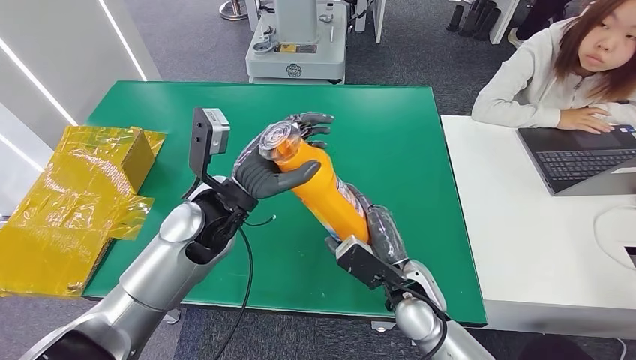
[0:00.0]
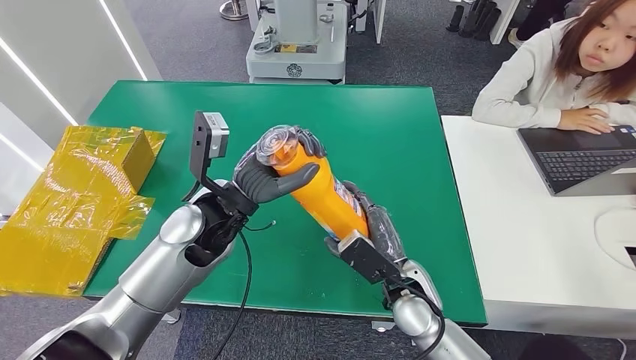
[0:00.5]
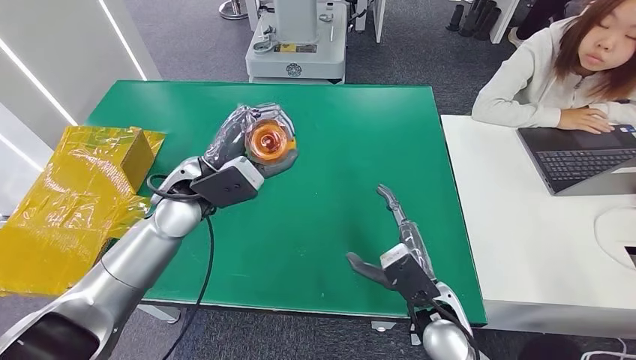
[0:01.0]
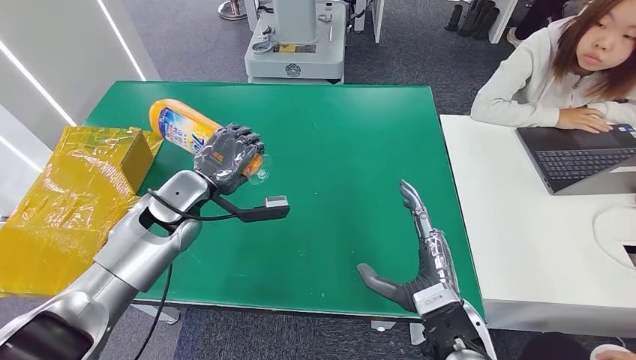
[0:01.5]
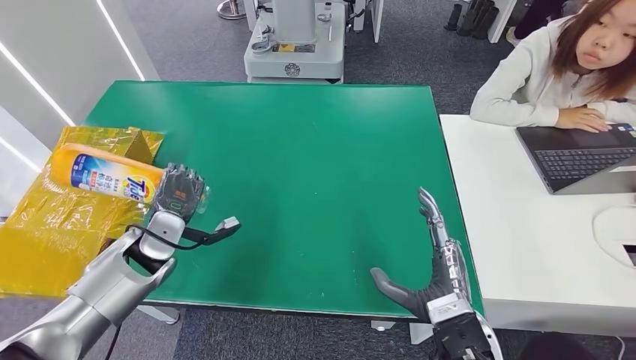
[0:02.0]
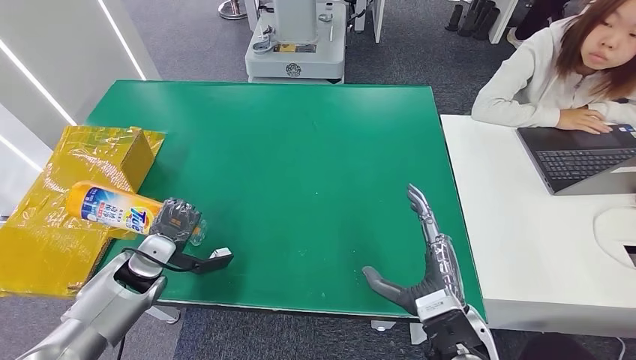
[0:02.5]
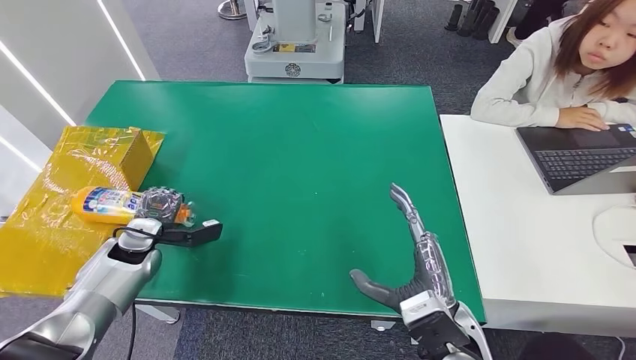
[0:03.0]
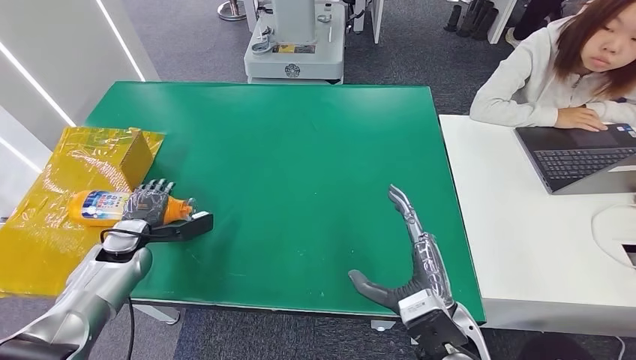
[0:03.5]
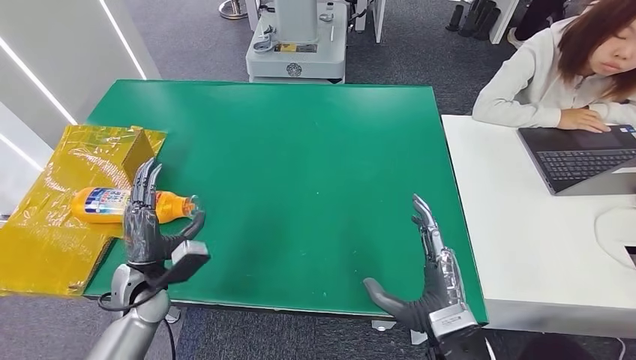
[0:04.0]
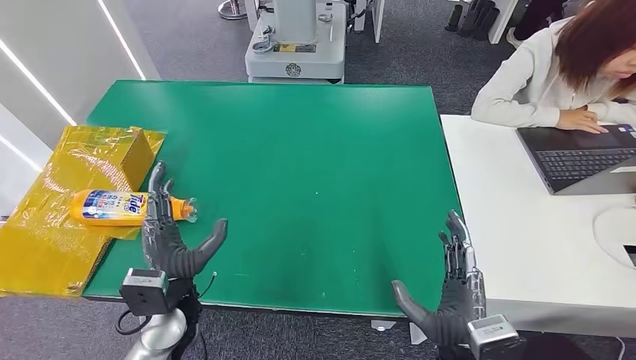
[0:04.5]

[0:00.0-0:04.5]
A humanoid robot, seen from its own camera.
Step, 0:00.0 to 0:04.0: Turn the bottle to the front side.
0:02.0 to 0:04.5: The left hand moves backward and to the right, approximately 15 cm.

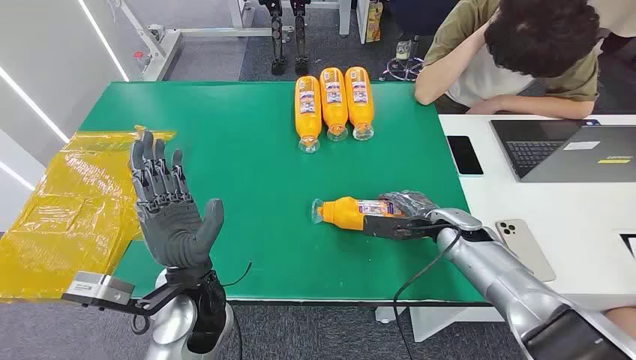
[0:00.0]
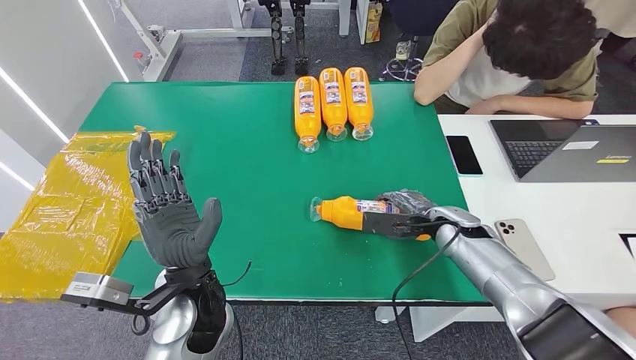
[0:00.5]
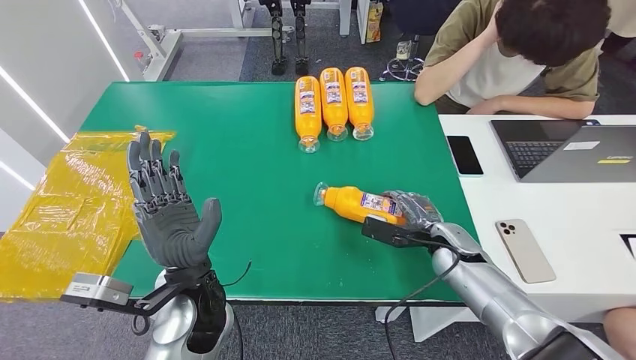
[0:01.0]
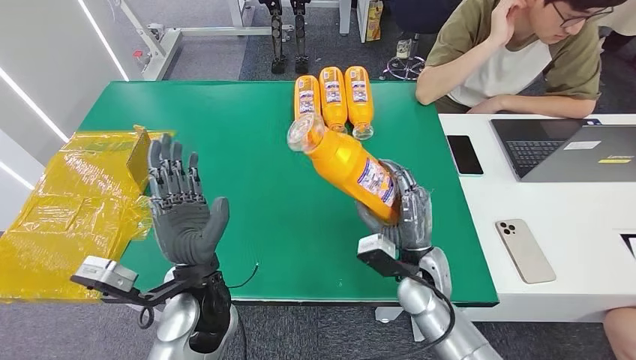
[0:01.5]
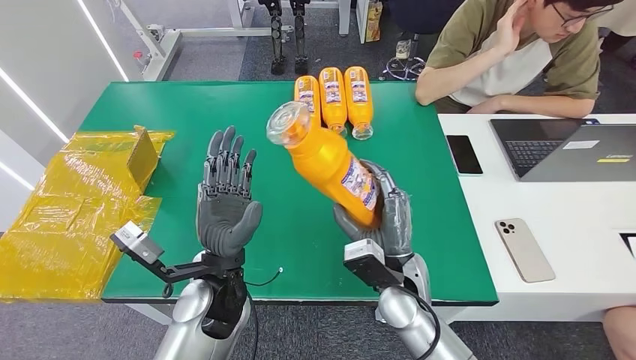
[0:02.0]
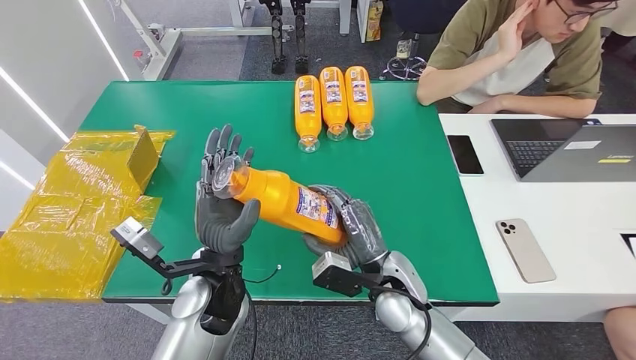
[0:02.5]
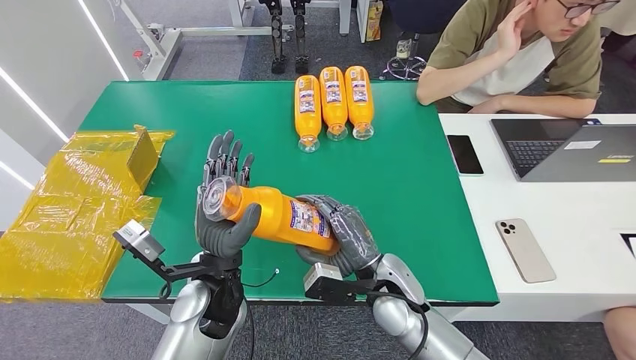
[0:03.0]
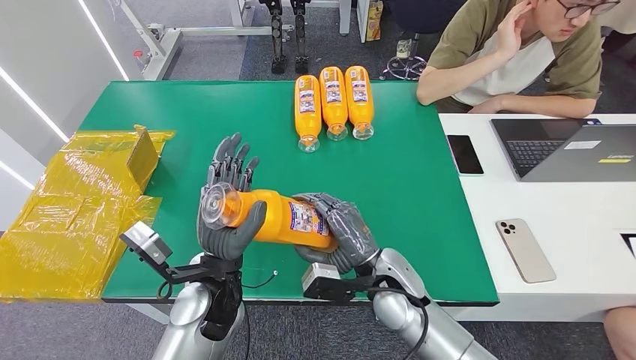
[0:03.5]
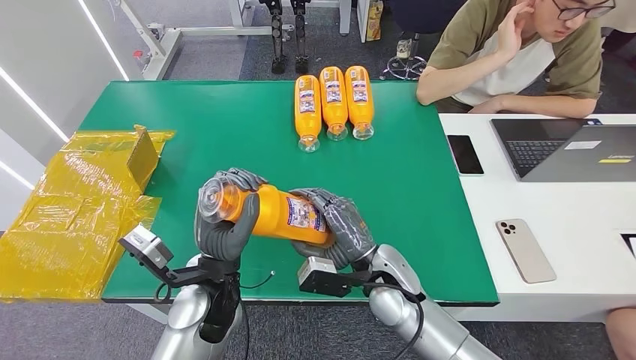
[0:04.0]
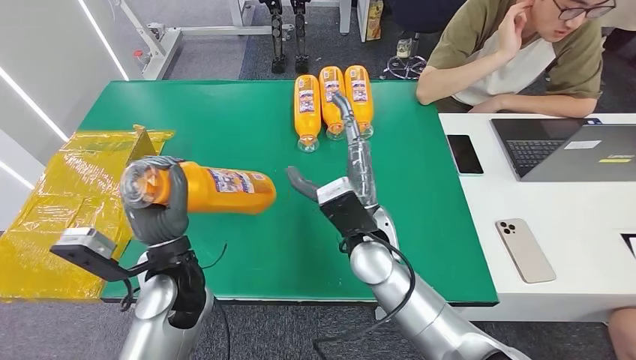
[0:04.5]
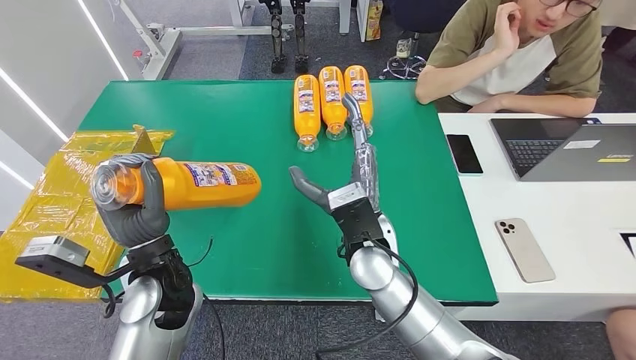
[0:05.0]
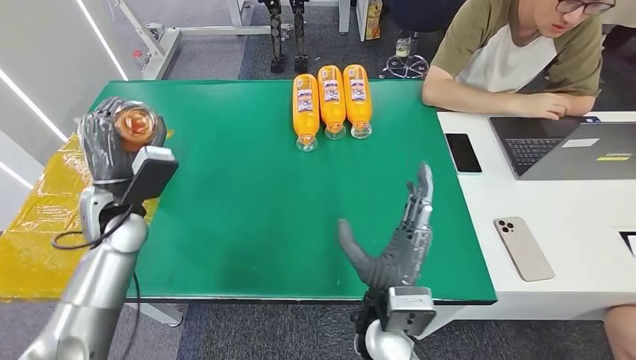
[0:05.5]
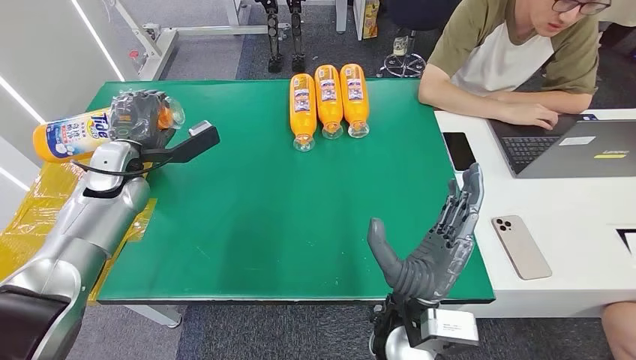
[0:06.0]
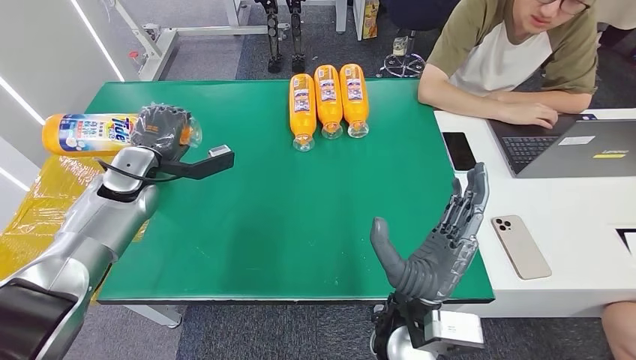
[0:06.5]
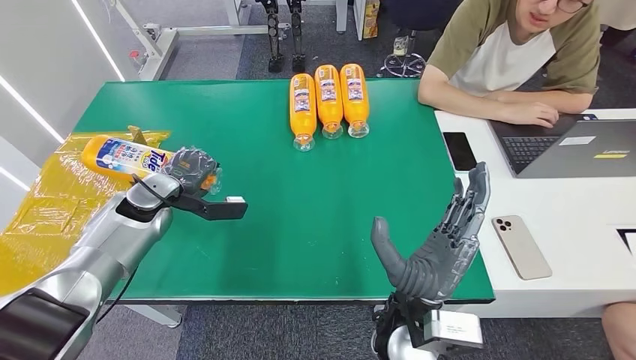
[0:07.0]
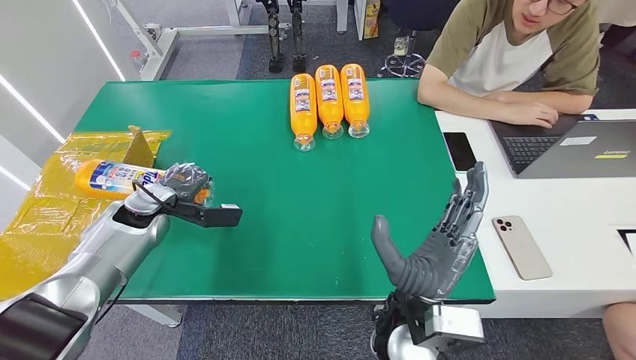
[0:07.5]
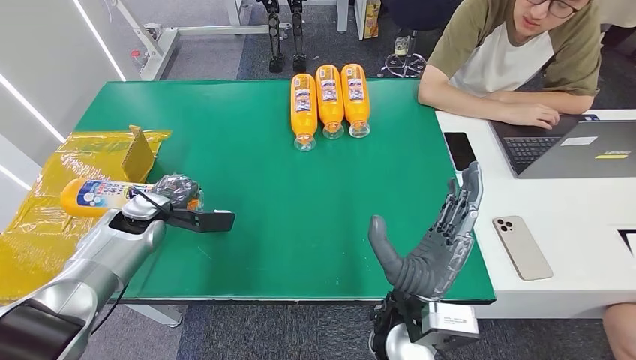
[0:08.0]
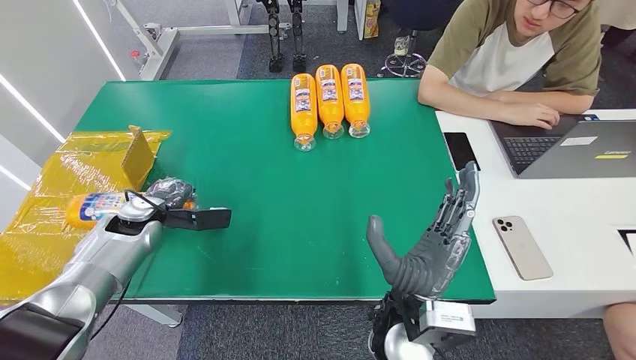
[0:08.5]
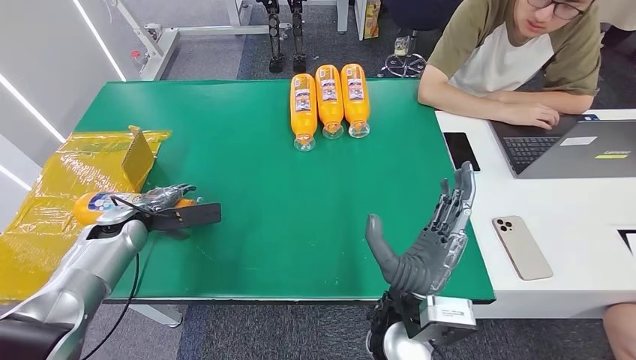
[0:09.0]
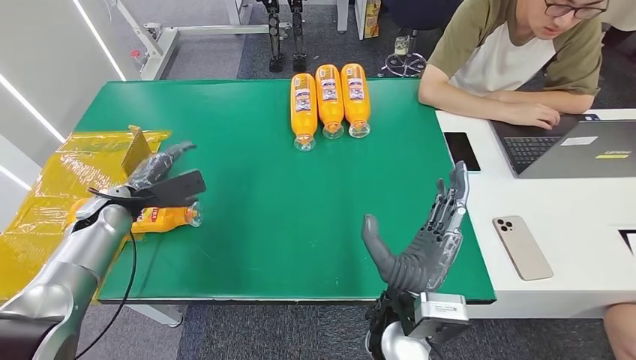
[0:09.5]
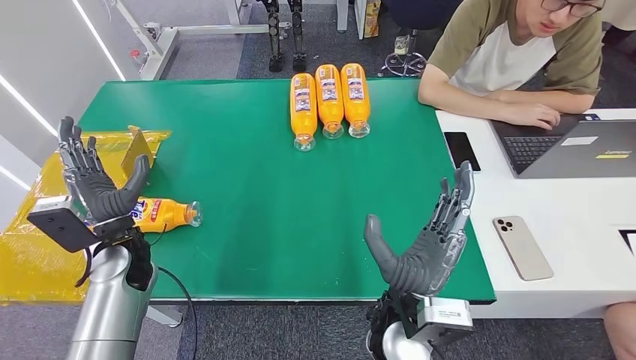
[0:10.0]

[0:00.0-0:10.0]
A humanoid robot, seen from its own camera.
Step, 0:00.0 to 0:03.0: Pick up the bottle from the table.
Step, 0:03.5 to 0:10.0: Turn the bottle to the front side.
0:06.0 to 0:08.0: The left hand shifts roughly 10 cm downward.
0:08.0 to 0:10.0: The left hand is displaced to the right and backward by some 10 cm.
